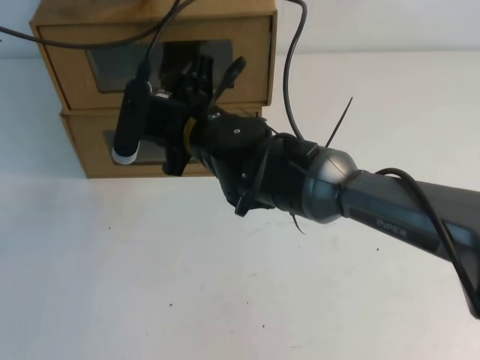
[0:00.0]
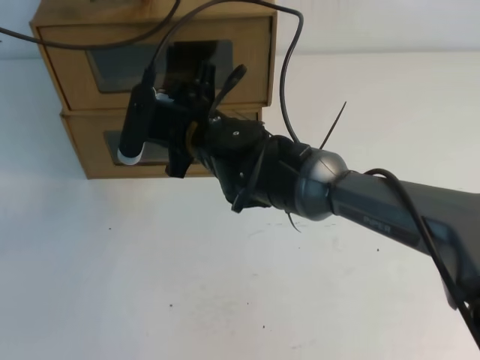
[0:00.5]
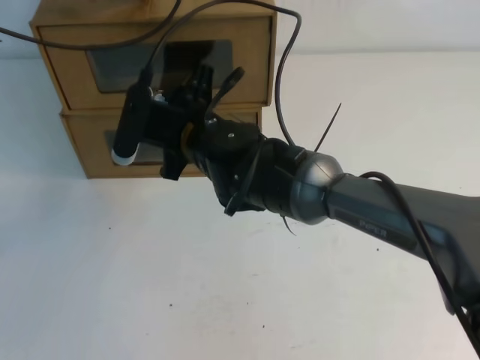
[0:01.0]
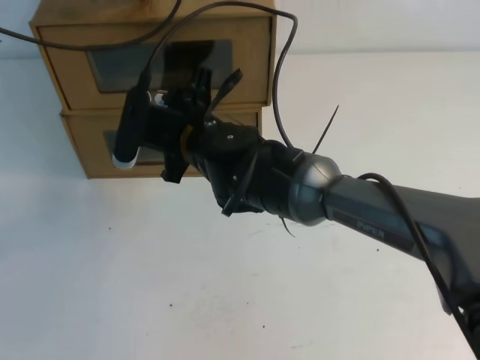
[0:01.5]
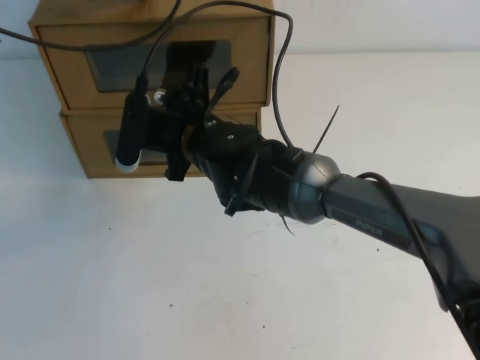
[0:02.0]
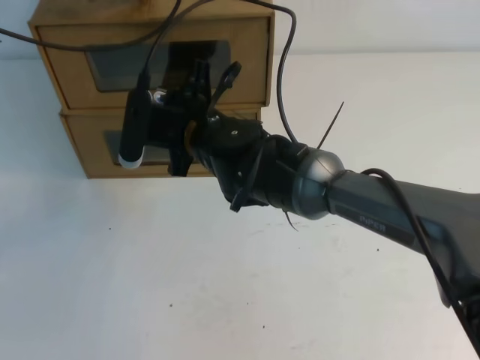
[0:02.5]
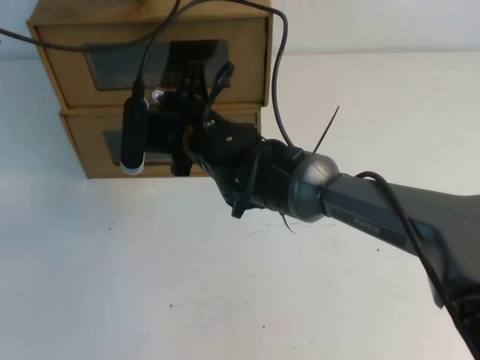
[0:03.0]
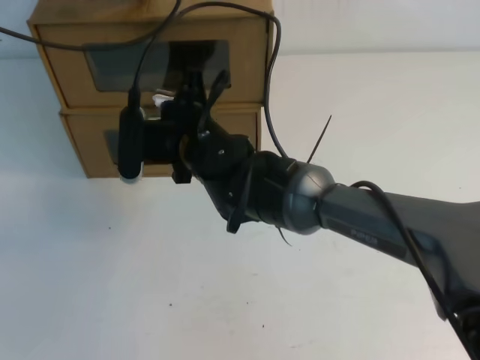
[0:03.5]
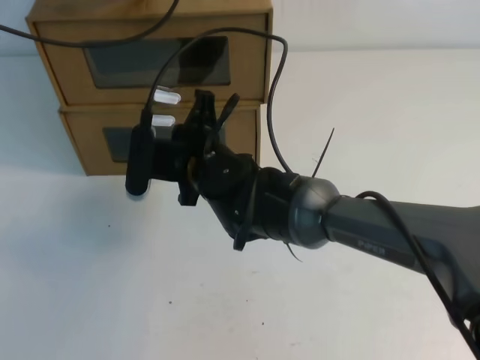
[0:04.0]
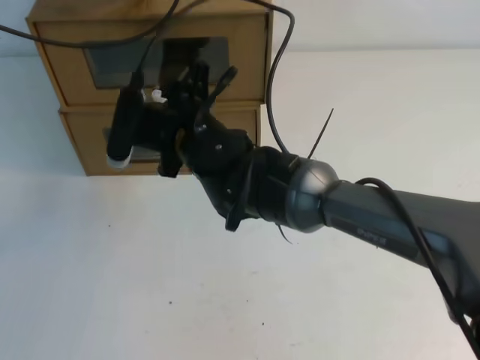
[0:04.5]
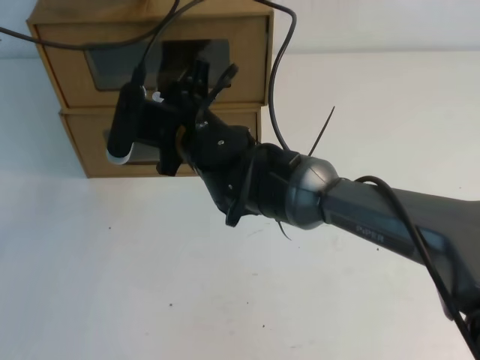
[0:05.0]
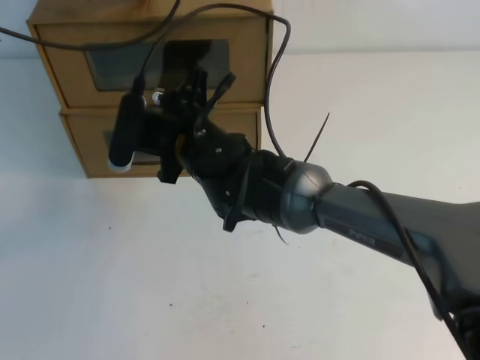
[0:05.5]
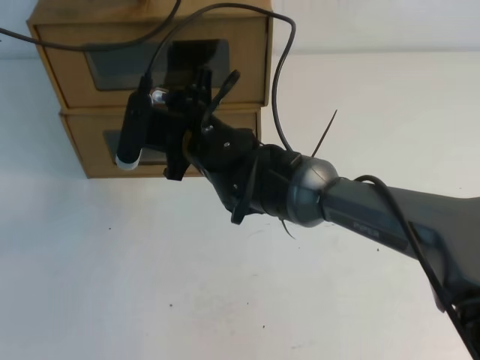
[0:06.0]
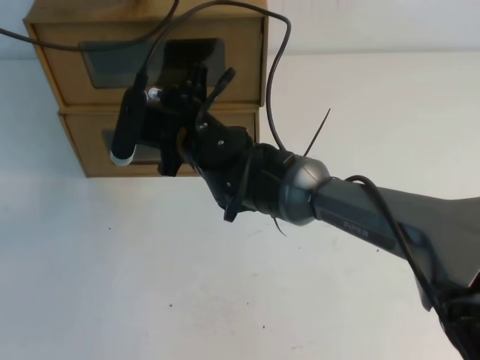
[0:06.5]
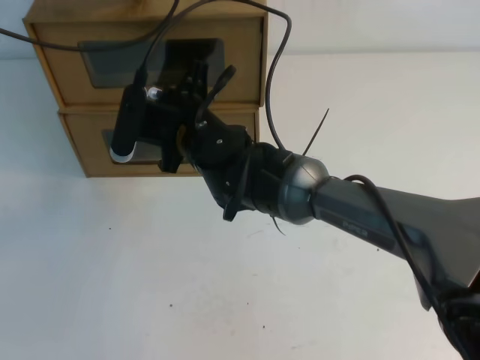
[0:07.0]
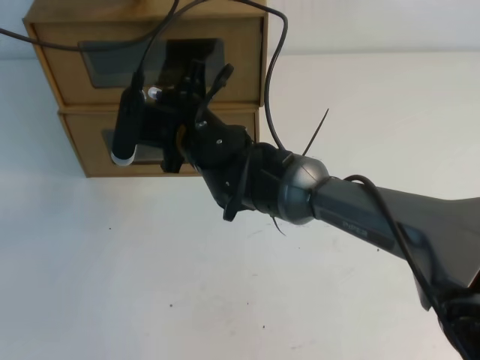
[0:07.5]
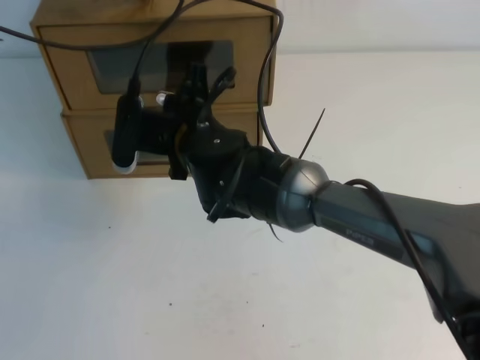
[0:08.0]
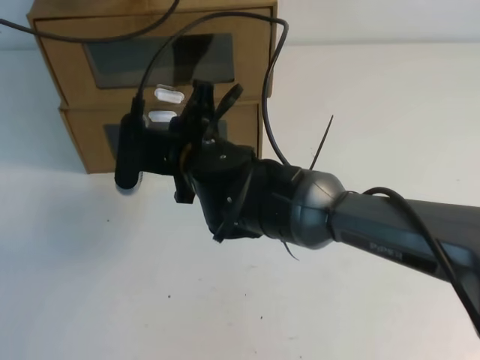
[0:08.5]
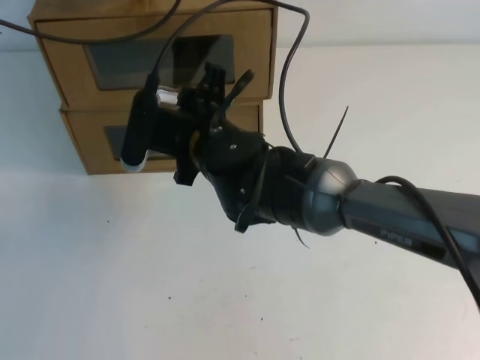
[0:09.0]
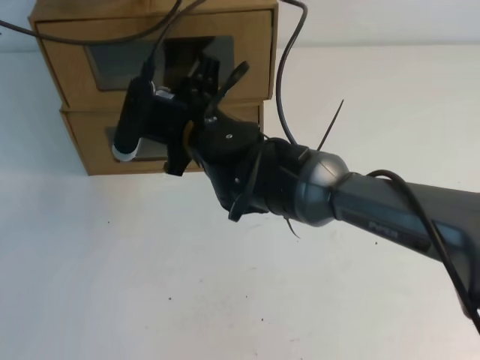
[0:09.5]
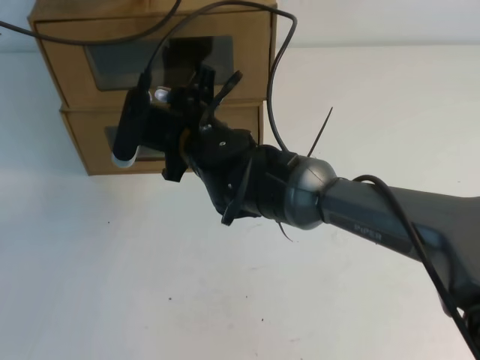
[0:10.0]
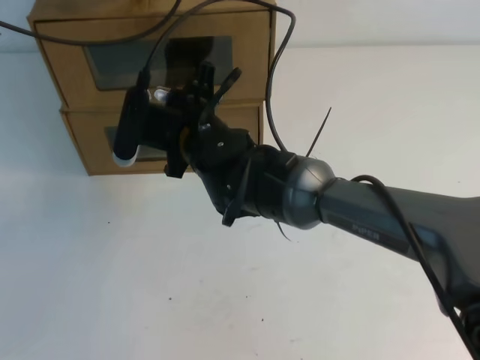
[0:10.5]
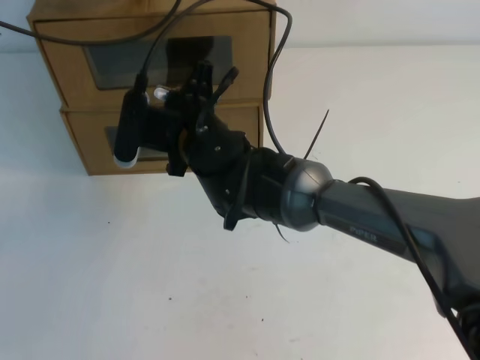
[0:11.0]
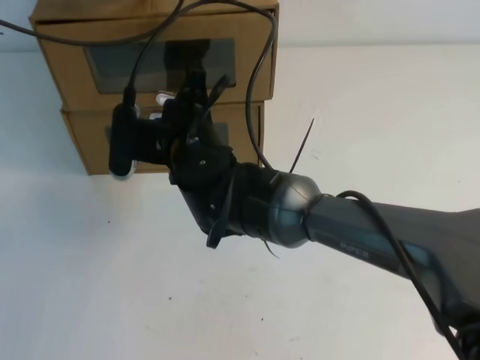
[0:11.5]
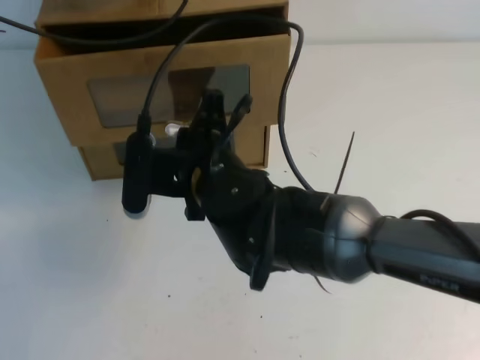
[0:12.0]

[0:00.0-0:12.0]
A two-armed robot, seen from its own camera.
Task of the whole recording: open the shoebox on the table.
0.0 to 2.0 s: The grippers make only small movements.
2.0 to 4.0 s: The right gripper closes.
4.0 to 6.0 s: The right gripper opens up.
6.0 to 8.0 s: The right gripper closes up.
8.0 to 10.0 s: The right gripper opens its fingers.
10.0 to 12.0 s: The right gripper is displaced backward by approximately 5 cm, and closes.

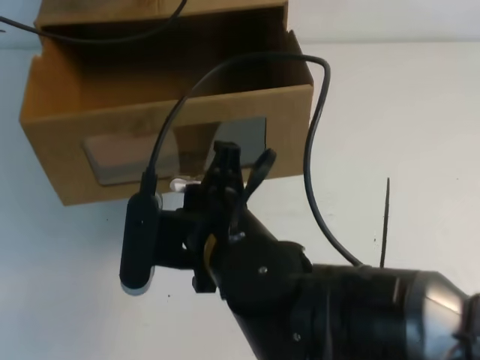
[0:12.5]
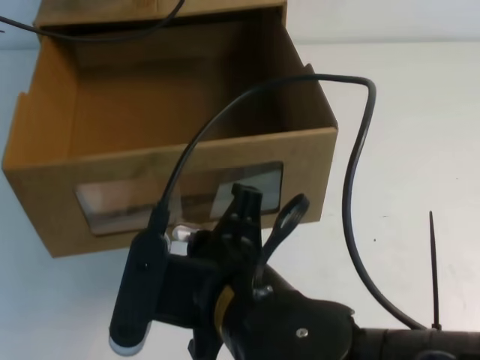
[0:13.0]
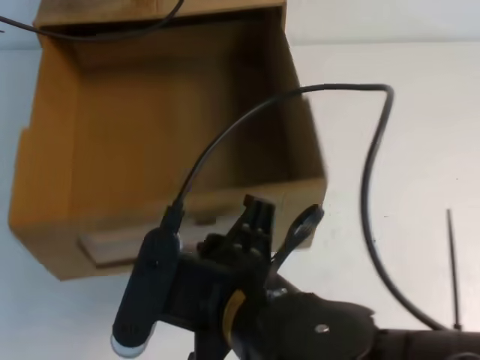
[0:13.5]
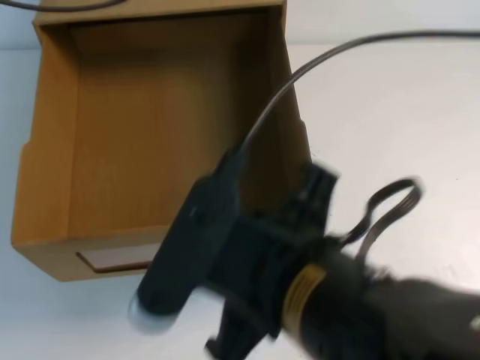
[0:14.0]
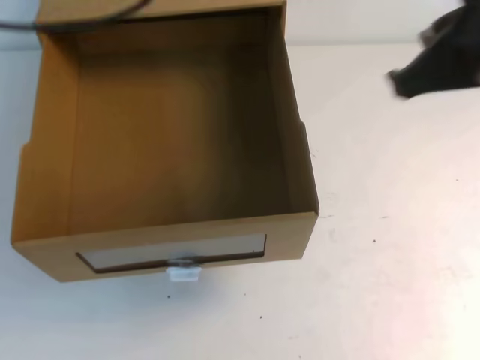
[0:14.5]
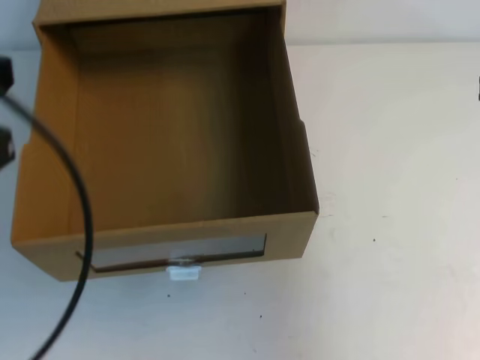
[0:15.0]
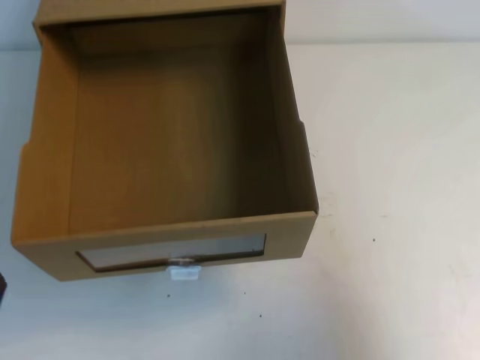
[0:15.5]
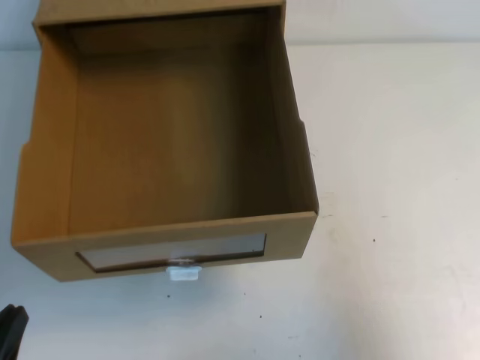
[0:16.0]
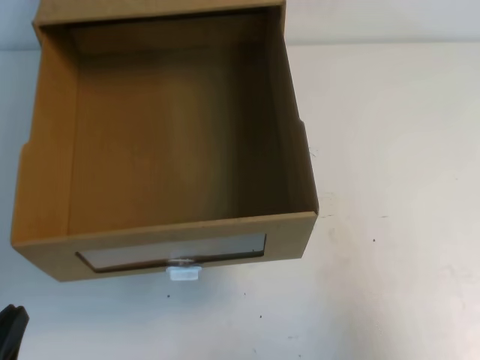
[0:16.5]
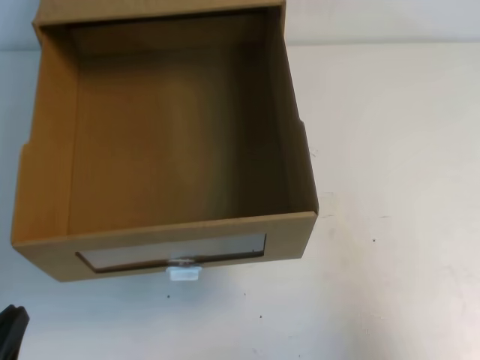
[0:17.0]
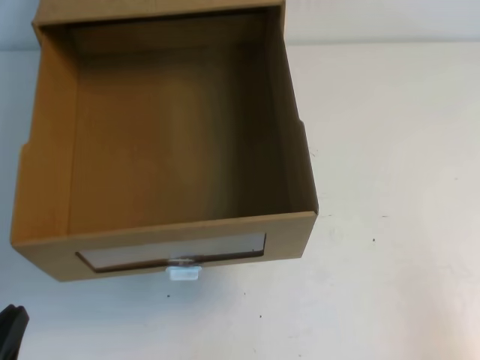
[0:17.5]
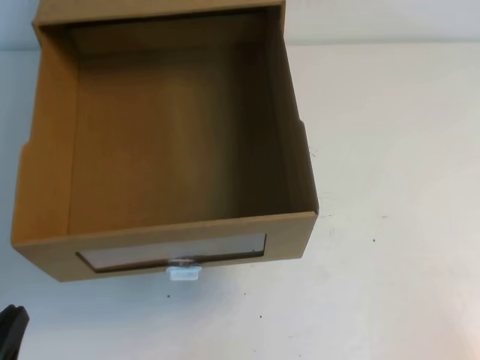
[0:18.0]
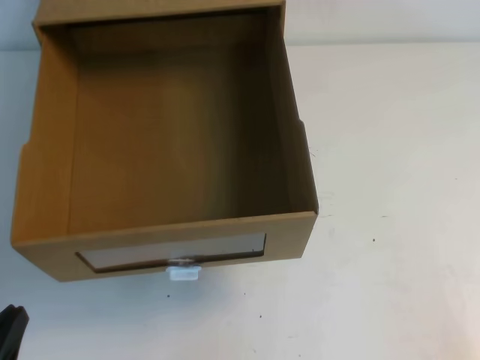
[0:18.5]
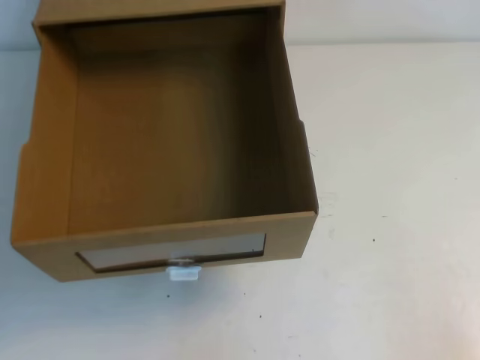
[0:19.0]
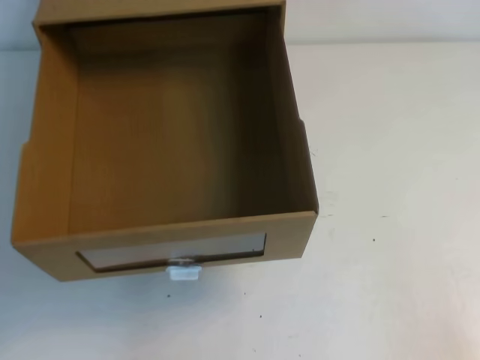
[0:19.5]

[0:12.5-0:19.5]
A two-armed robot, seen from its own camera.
Task of the whole recording: open the shoebox on the table.
Step, 12.5 to 19.5 s: Open the shoe box.
12.5 to 14.5 s: The left gripper goes about 15 cm backward and upward. Meanwhile the right gripper moves to the right and upward, about 20 cm.
14.5 to 16.0 s: The left gripper heads downward and backward, covering roughly 40 cm; the right gripper moves to the right and downward, about 20 cm.
16.0 to 17.5 s: The right gripper goes some 10 cm backward and downward.

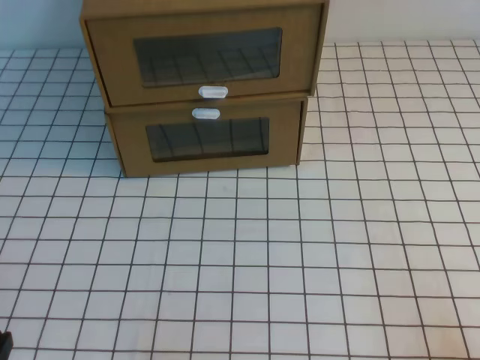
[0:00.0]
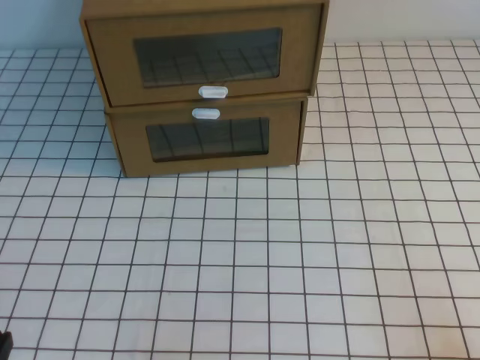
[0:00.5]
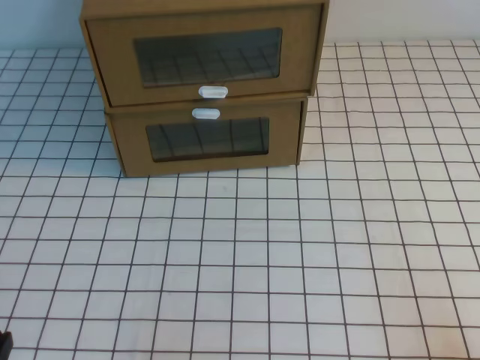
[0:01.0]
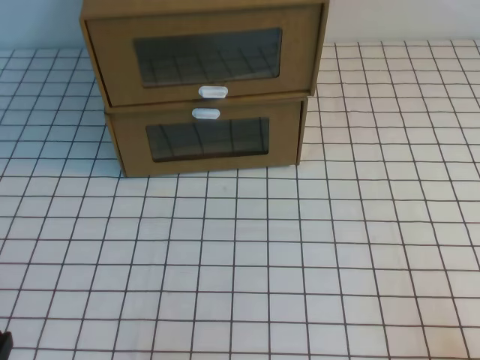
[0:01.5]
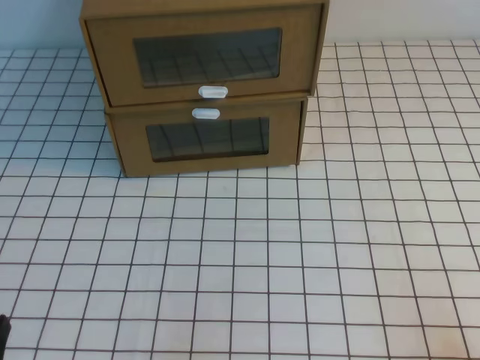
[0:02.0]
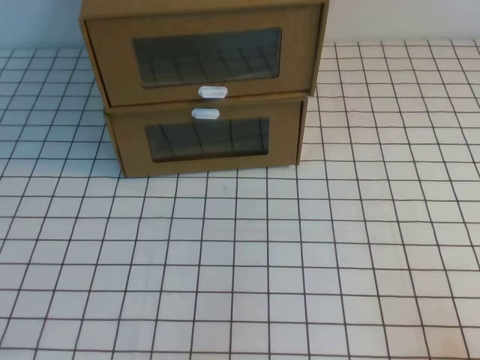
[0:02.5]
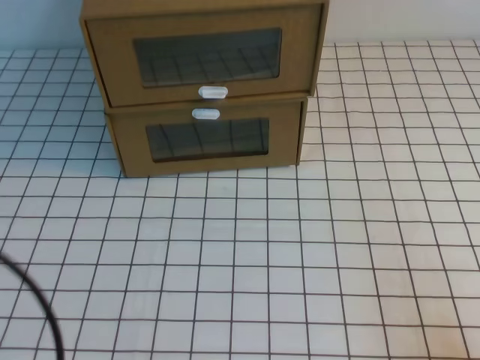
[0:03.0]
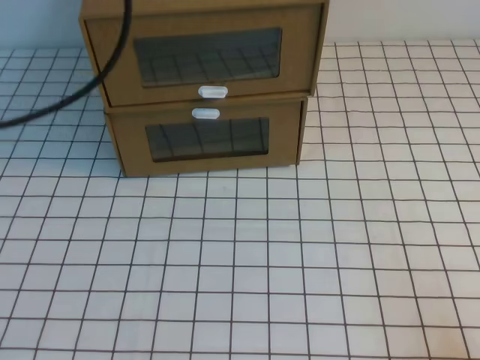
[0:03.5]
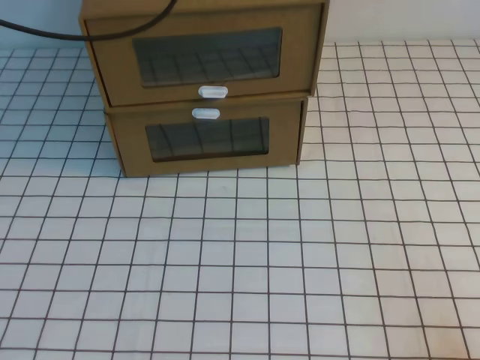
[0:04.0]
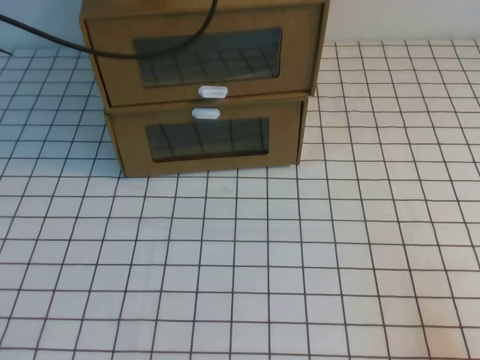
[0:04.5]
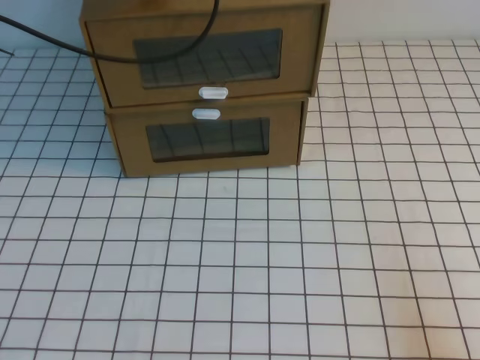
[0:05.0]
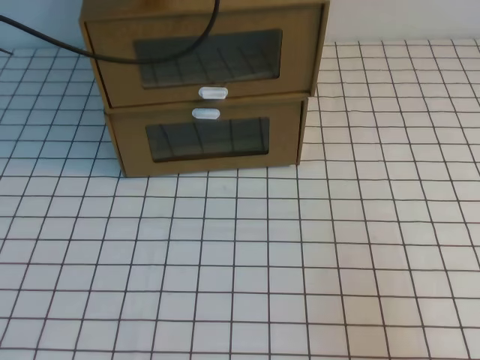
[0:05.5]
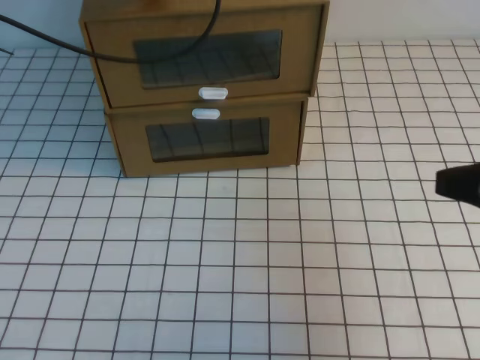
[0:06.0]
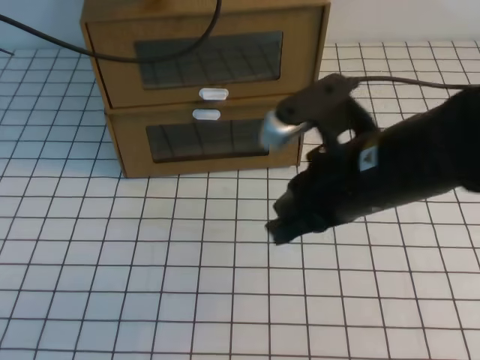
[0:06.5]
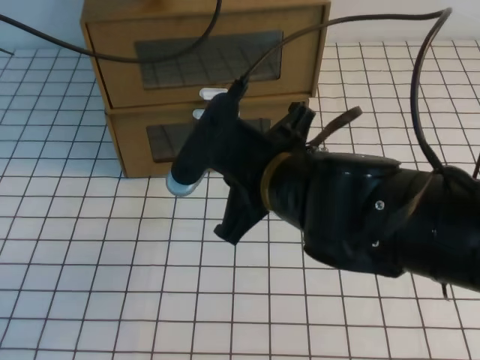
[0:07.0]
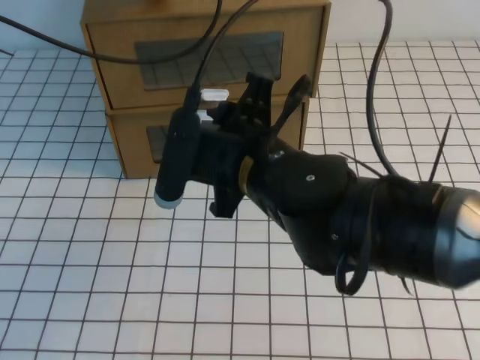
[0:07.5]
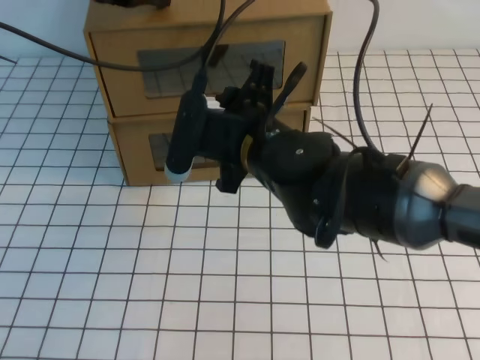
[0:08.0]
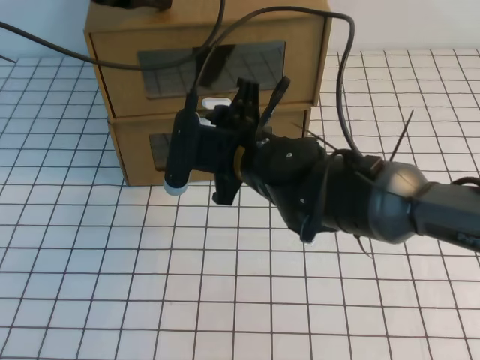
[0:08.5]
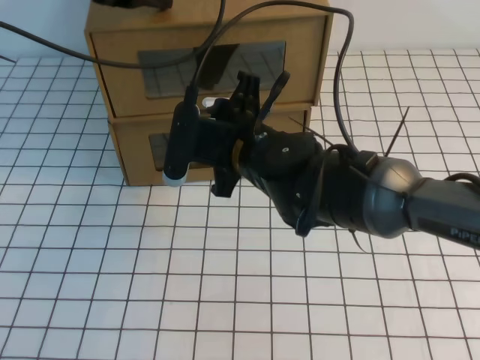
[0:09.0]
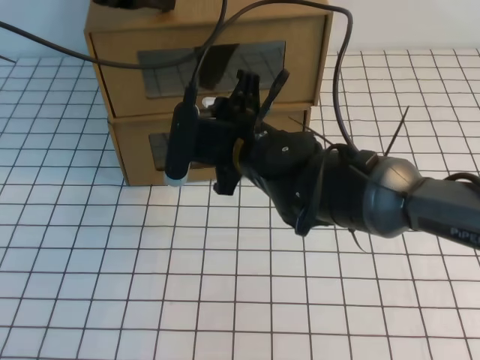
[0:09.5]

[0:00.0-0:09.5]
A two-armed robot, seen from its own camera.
Task of the whole recording: open the shoebox on the white tablecloth.
2.0 to 4.0 s: The left gripper is displaced forward and upward by some 40 cm.
4.0 to 5.5 s: The left gripper ends up some 5 cm from where it was; the right gripper travels upward by some 10 cm.
5.5 to 7.5 s: The right gripper travels to the left and forward by some 35 cm, and opens up.
7.5 to 9.5 s: The right gripper travels forward by roughly 5 cm.
